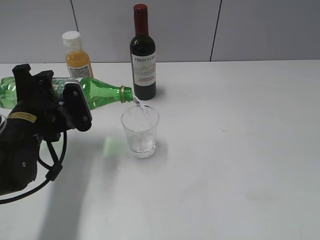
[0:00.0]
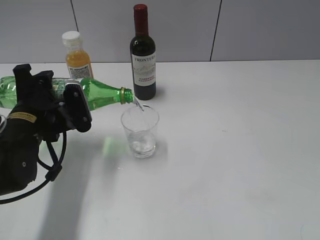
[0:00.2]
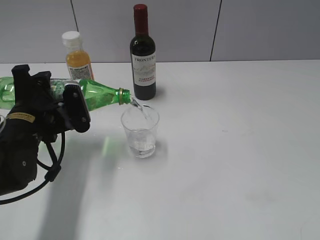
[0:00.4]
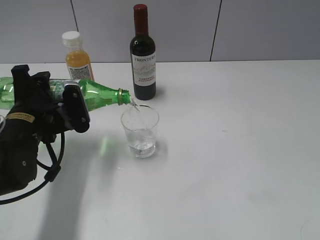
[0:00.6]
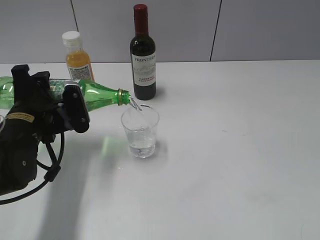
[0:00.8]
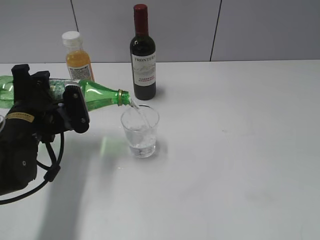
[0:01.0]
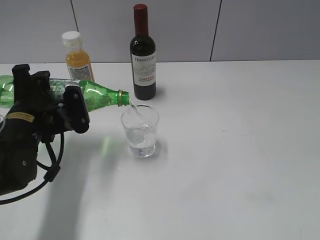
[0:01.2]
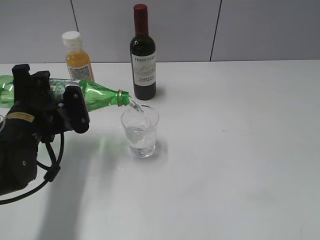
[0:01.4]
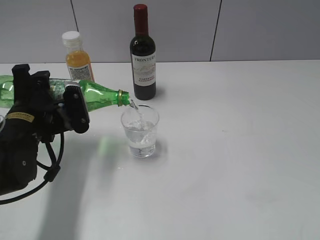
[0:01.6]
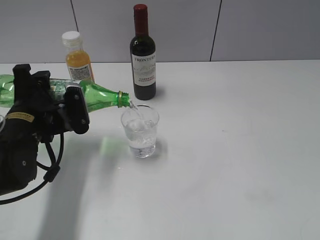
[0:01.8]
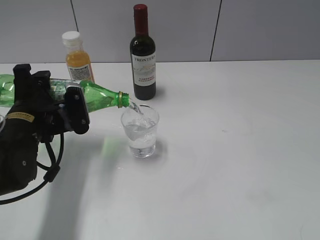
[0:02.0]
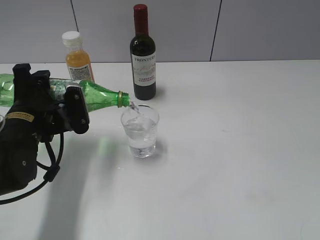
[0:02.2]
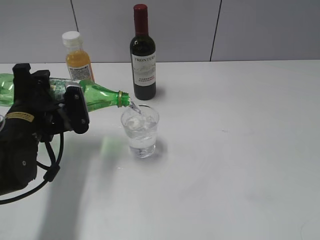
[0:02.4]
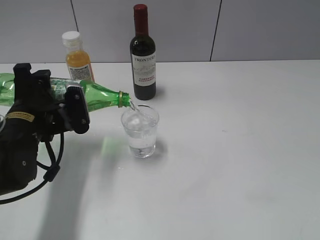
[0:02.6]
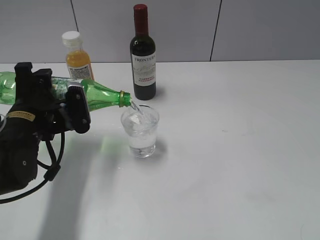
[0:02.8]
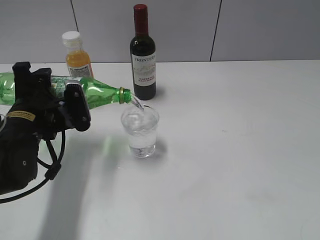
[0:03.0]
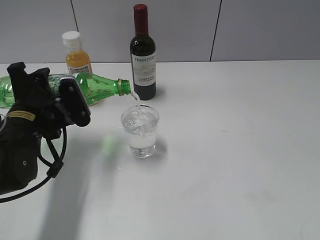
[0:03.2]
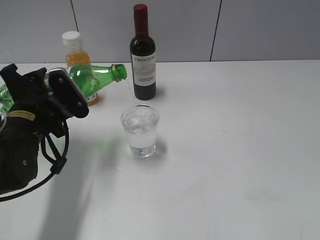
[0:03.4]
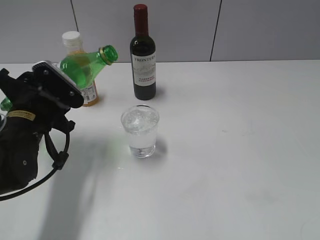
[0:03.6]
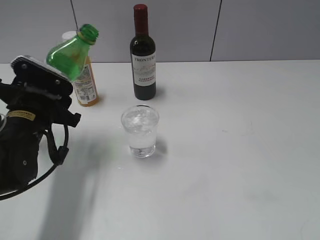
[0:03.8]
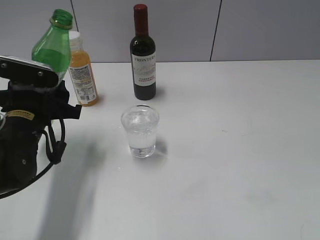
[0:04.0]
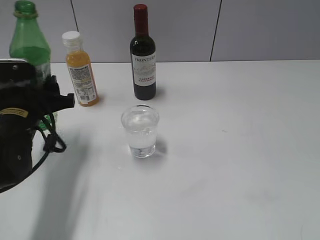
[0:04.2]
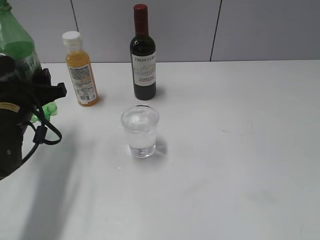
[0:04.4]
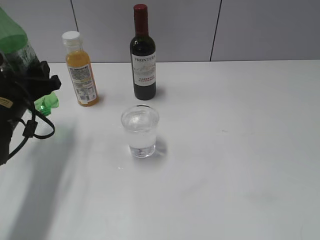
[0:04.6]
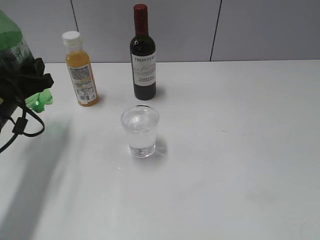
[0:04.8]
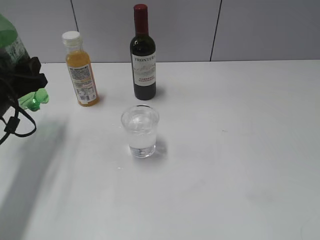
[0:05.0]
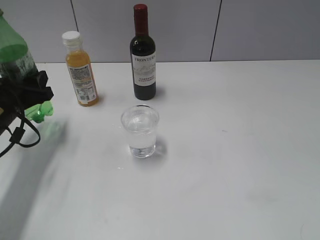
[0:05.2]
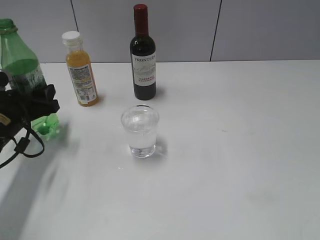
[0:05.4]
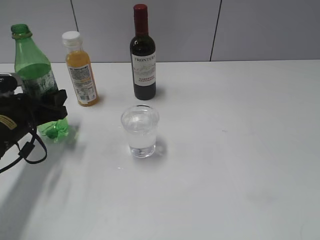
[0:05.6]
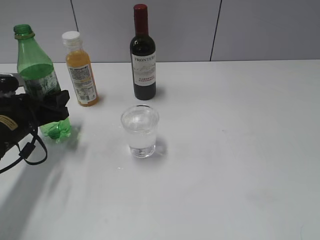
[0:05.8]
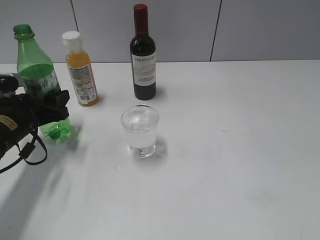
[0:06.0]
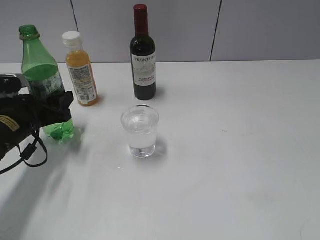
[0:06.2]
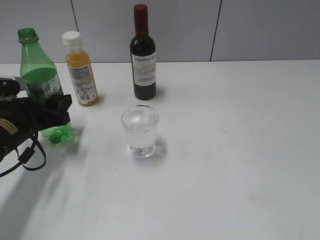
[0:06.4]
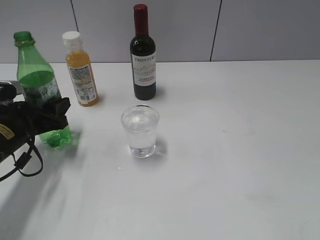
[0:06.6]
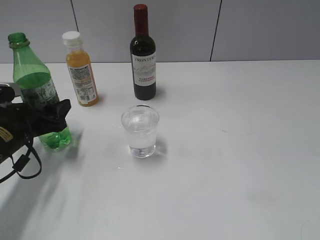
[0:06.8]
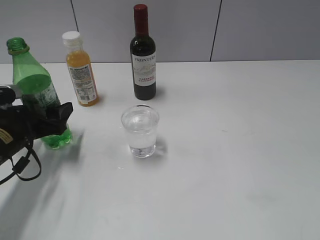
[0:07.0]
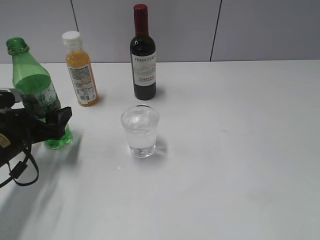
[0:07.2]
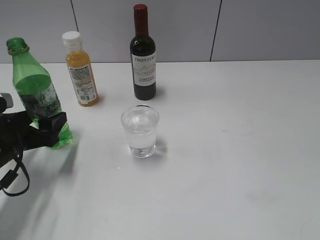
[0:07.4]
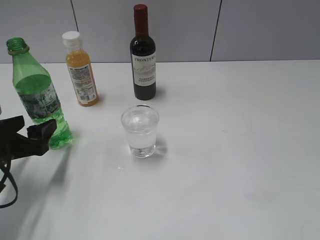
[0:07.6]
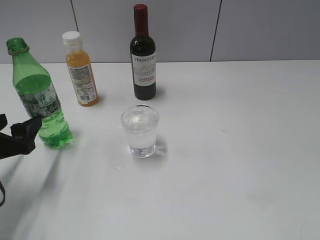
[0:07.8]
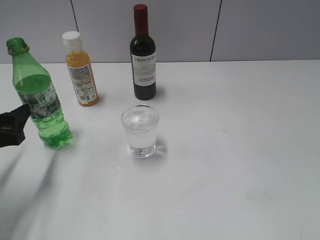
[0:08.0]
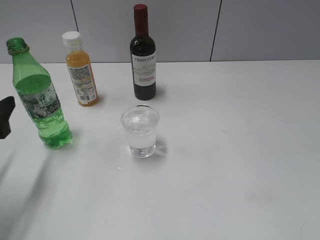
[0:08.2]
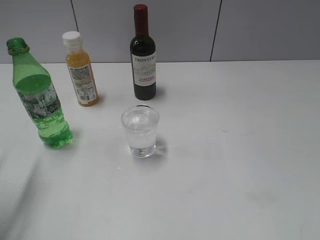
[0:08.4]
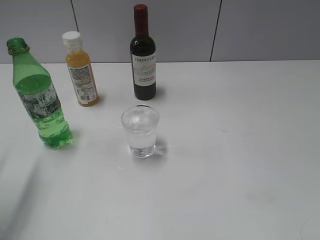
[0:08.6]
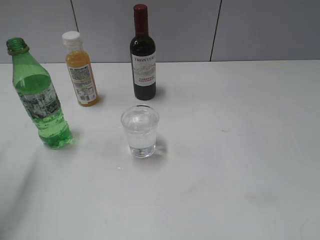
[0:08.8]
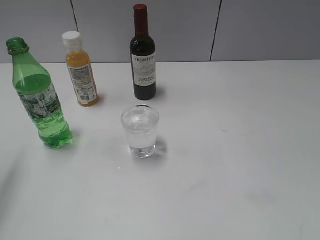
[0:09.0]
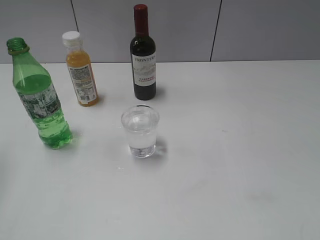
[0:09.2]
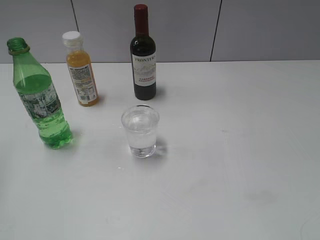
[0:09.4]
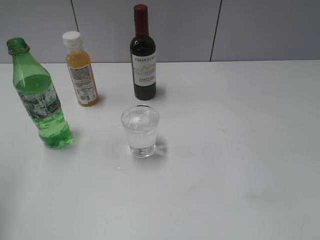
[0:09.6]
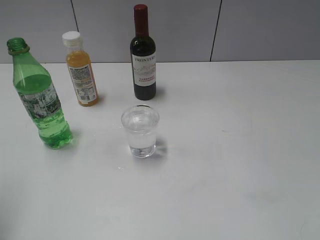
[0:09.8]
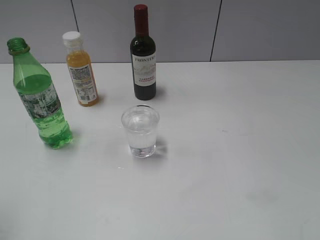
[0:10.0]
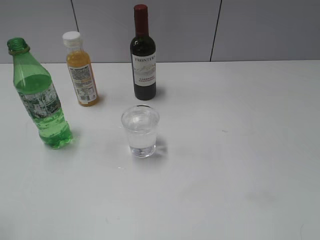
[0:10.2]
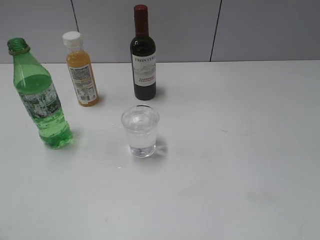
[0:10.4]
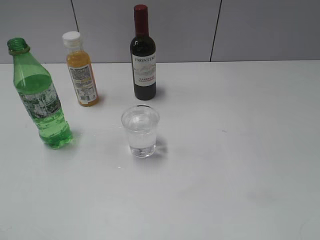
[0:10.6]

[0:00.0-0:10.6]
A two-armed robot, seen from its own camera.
Step, 0:00.0 to 0:03.4: Pour the sprite from bottle to cup with left gripper.
Step, 0:03.8 to 0:07.6: Place the sprite bottle on the table with left gripper.
0:00.0 to 0:01.6: Both grippers stay about where they are.
0:01.6 to 0:03.0: Both grippers stay put.
0:03.0 to 0:04.6: The left gripper changes place by about 5 cm.
0:04.6 to 0:06.0: The left gripper changes place by some 5 cm.
0:06.0 to 0:07.6: The left gripper heads backward, covering approximately 5 cm, and opens up.
0:07.6 to 0:09.0: The left gripper goes some 15 cm upward.
0:09.0 to 0:10.6: The left gripper heads backward, covering roughly 15 cm.

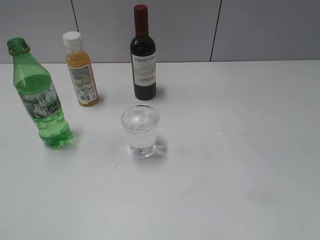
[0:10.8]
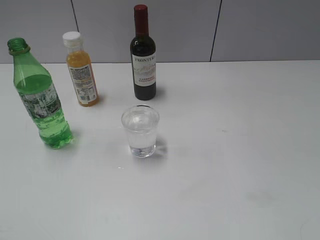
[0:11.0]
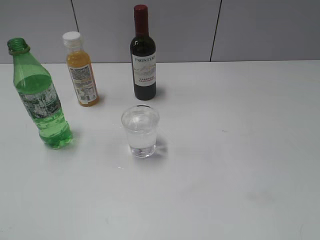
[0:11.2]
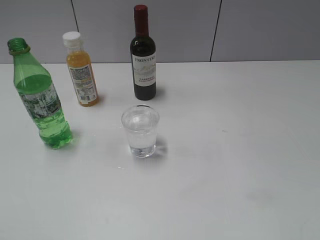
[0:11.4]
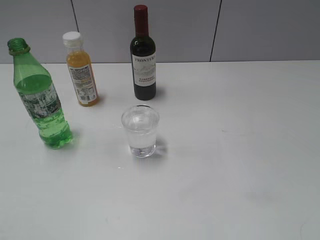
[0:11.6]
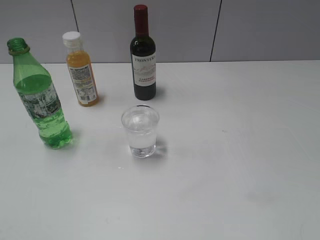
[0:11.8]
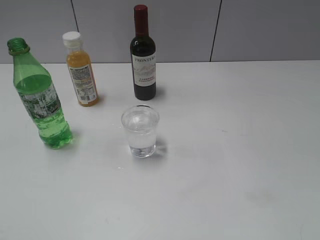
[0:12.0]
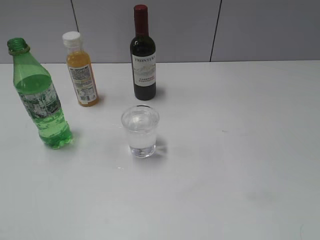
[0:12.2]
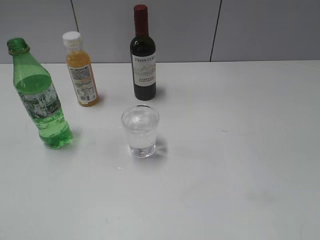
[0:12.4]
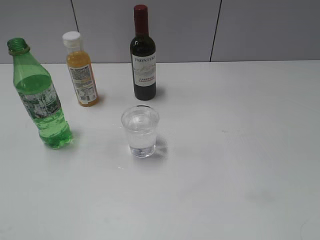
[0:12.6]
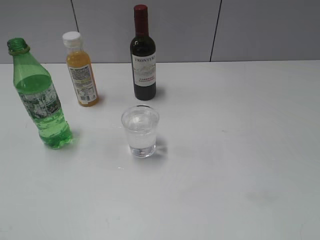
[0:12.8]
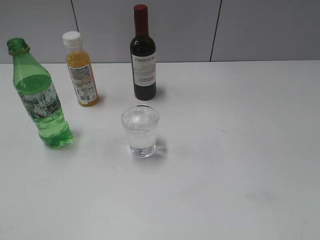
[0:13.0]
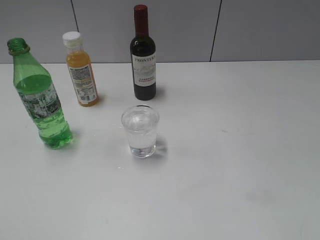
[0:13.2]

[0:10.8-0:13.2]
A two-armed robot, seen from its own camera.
0:12.0 to 0:13.2: Both grippers stay about where they are.
